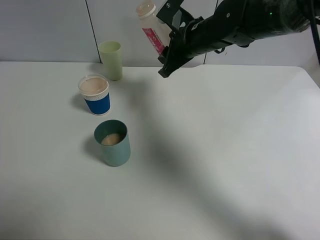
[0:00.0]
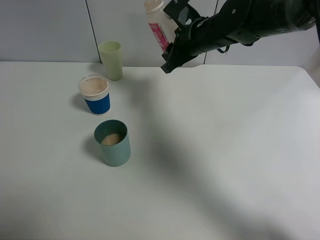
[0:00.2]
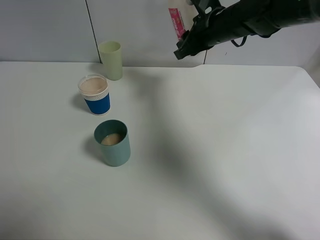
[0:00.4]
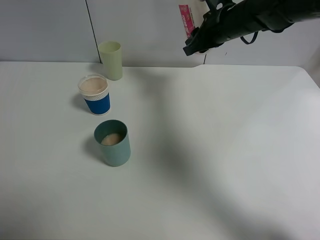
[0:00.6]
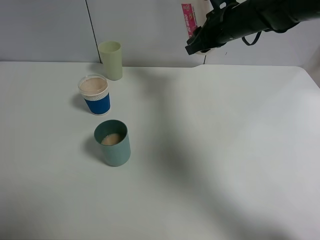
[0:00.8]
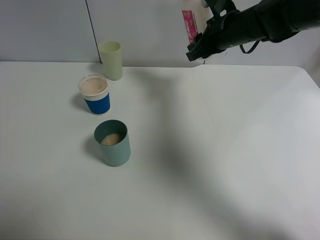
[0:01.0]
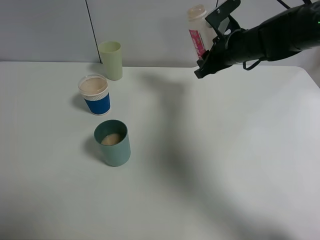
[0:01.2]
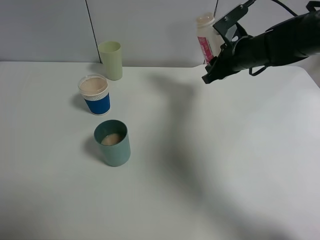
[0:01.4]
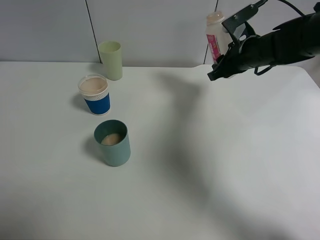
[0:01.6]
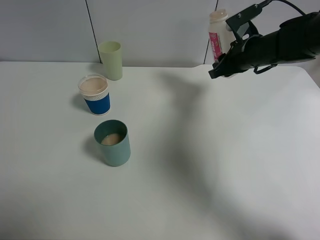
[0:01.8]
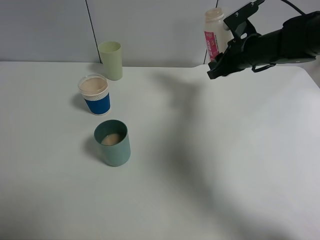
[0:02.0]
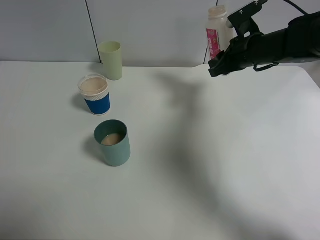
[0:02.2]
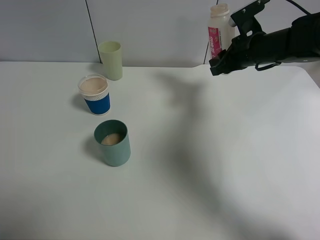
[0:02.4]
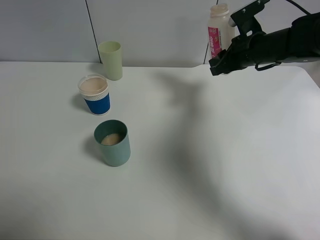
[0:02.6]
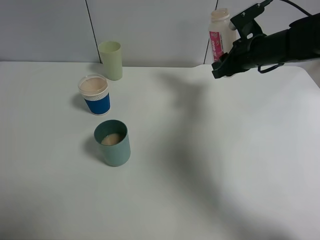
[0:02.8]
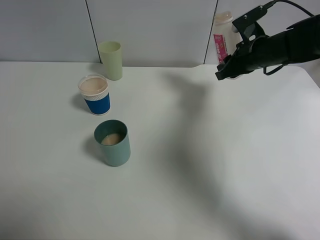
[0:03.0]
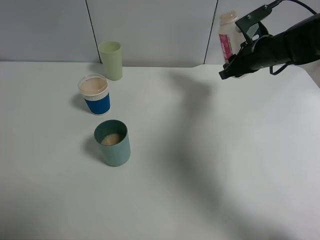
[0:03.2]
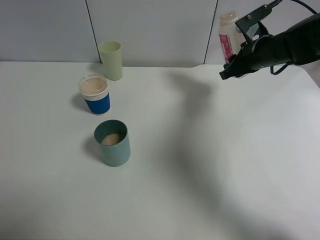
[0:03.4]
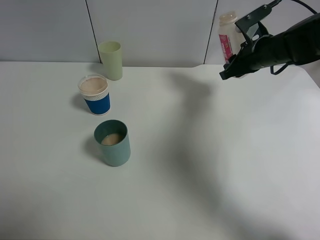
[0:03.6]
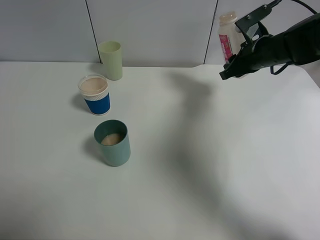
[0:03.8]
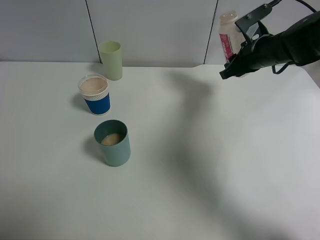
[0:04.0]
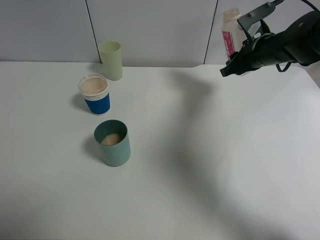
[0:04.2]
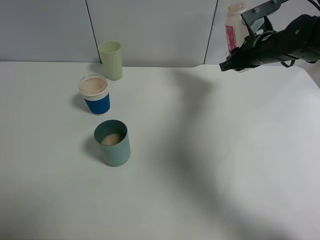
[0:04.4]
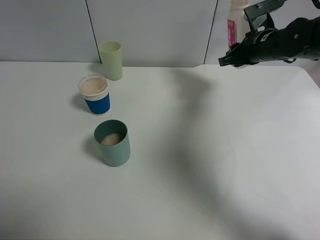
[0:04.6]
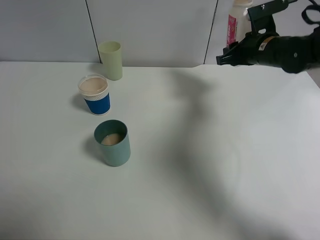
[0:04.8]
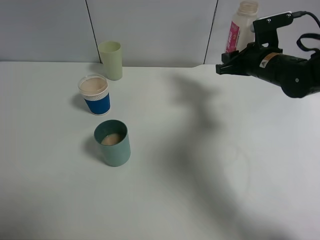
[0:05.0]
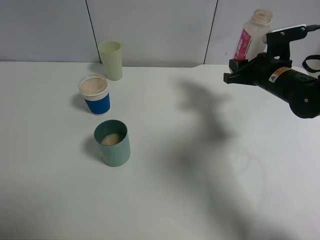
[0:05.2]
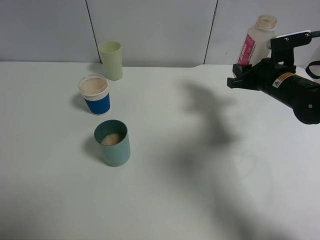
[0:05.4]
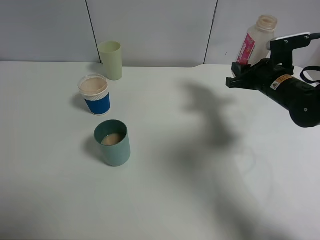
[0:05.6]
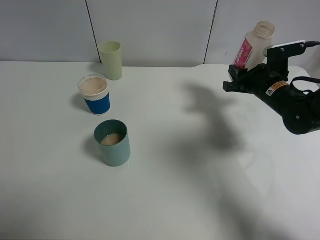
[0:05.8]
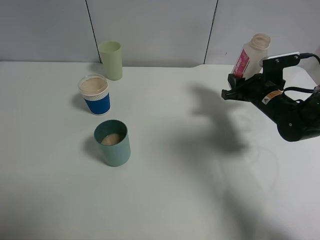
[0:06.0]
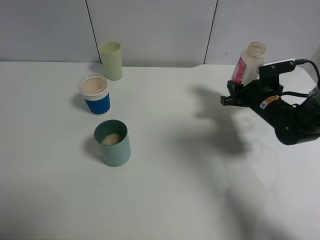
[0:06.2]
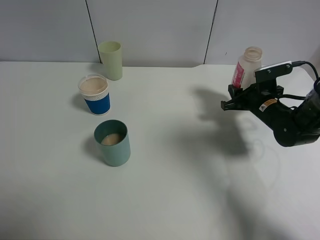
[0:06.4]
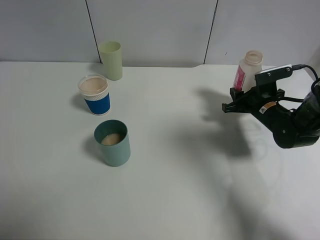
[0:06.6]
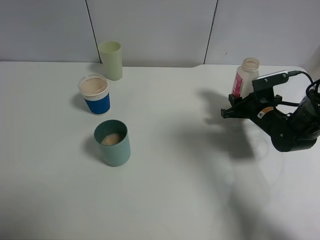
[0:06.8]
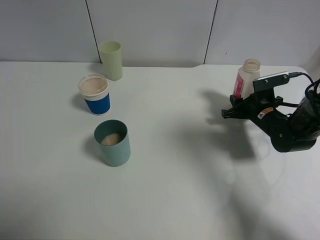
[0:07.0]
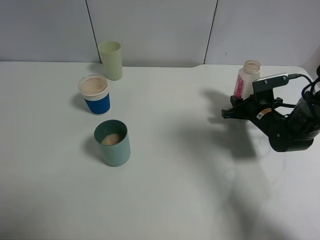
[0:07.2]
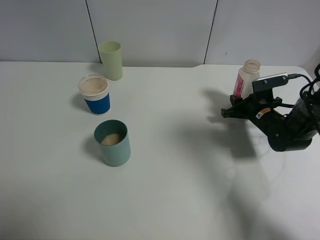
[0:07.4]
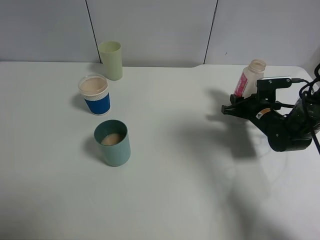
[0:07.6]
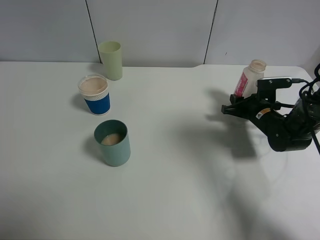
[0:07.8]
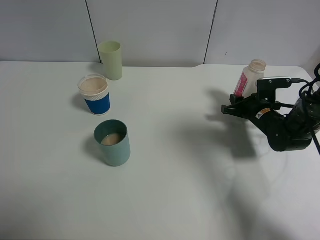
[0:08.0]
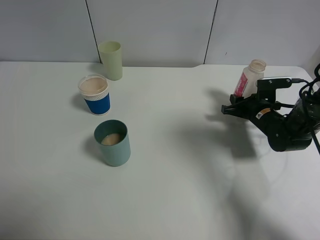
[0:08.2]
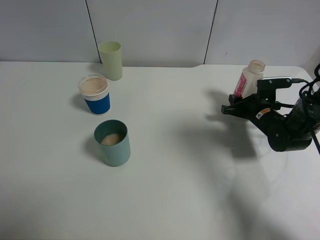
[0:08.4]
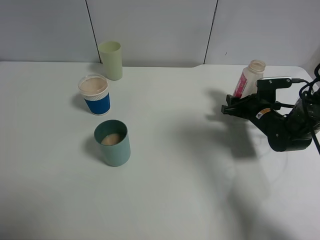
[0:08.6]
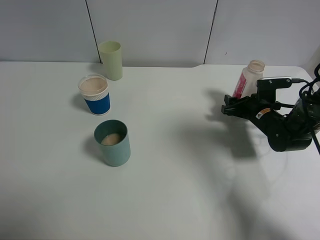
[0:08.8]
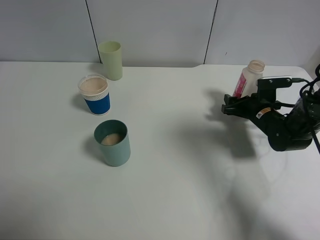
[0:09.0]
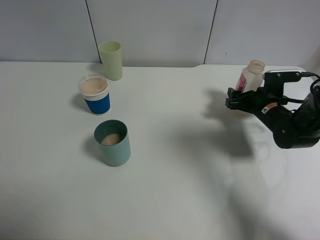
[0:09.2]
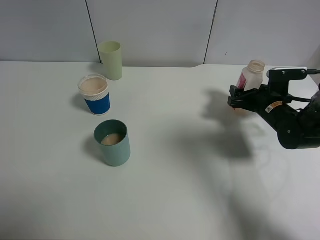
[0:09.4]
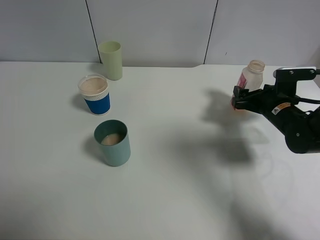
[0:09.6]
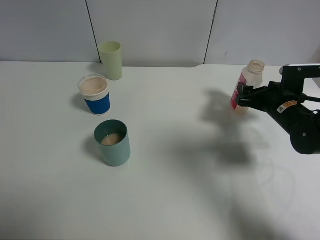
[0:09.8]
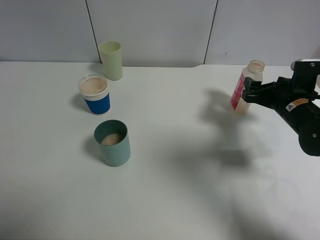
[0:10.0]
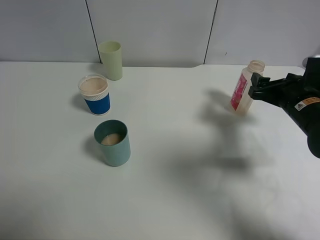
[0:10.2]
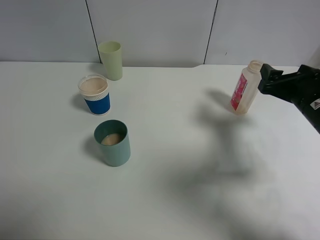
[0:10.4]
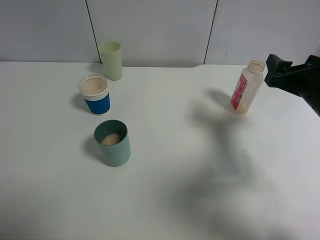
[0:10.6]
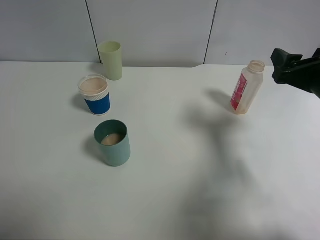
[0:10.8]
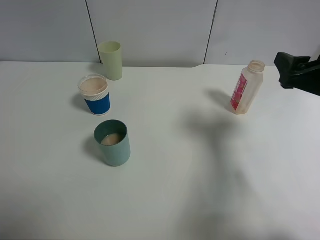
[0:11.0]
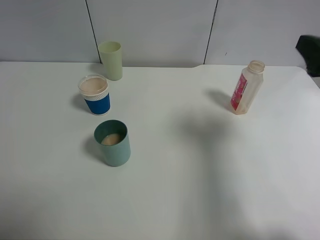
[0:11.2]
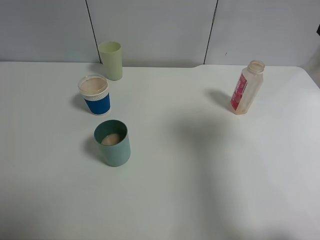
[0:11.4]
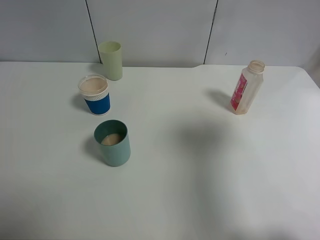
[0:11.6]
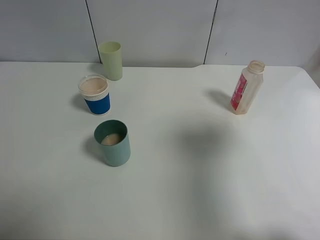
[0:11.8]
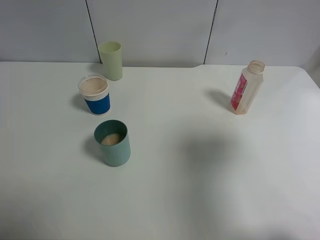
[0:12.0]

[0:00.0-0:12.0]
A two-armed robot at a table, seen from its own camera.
Task of the whole recording: use a clamp to hold the bottle of the drink, pour the beverage into a random cup, then clamp the cup containing the drink and pour the drink into another random cup.
Step, 0:00.0 to 0:10.8: Place the drink bottle on the table with right gripper.
0:00.0 to 0:01.6: The right gripper heads to the right, covering approximately 10 cm.
0:01.6 to 0:04.4: The grippers move only a little.
0:04.4 to 0:06.0: The right gripper is displaced downward and backward by some 10 cm.
0:06.0 to 0:07.6: The right gripper travels downward by about 5 cm.
0:07.6 to 0:09.0: The right gripper opens its fingers.
0:09.0 to 0:10.4: The right gripper moves upward and backward, approximately 15 cm.
0:10.4 to 0:12.0: The right gripper goes some 20 cm upward and backward.

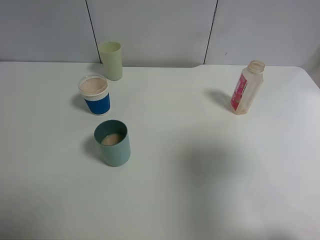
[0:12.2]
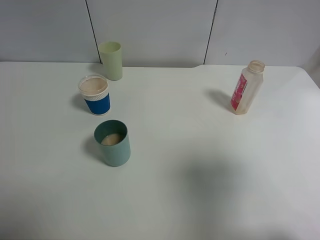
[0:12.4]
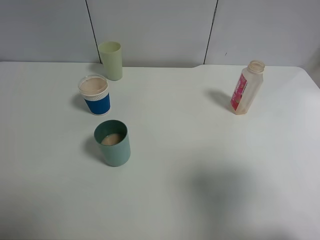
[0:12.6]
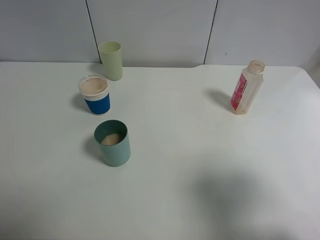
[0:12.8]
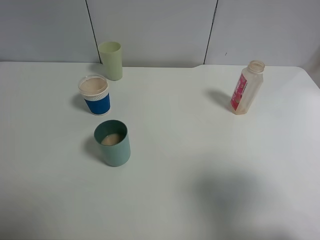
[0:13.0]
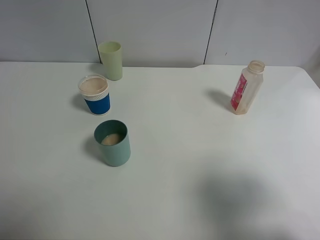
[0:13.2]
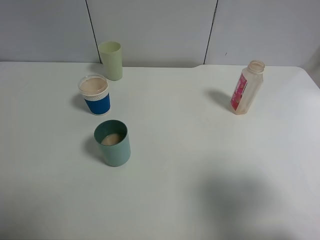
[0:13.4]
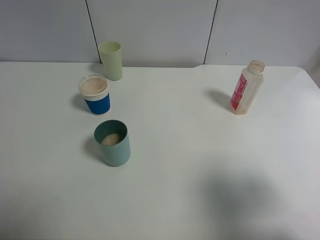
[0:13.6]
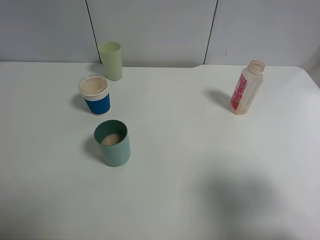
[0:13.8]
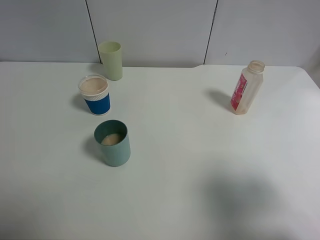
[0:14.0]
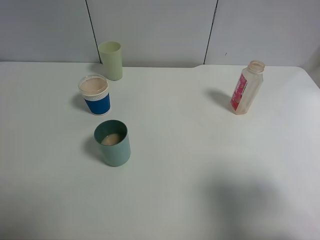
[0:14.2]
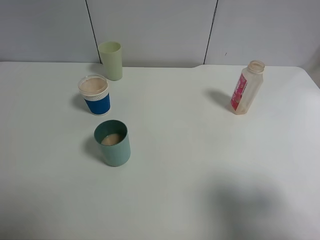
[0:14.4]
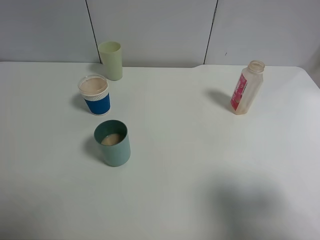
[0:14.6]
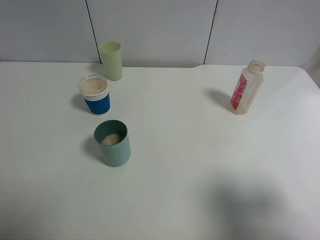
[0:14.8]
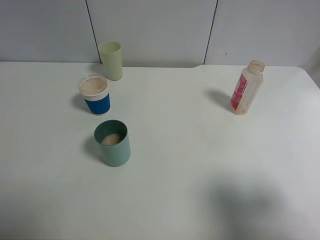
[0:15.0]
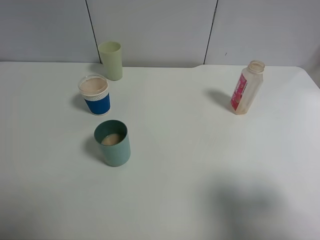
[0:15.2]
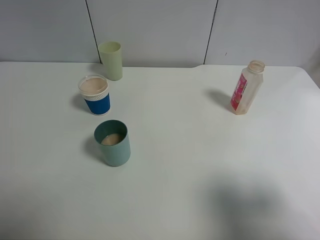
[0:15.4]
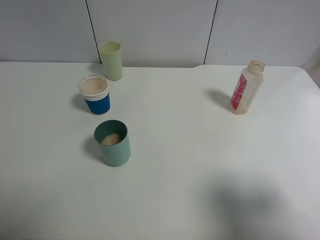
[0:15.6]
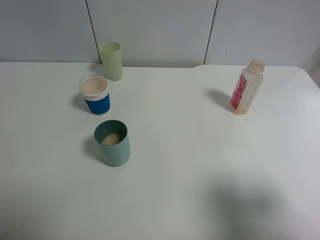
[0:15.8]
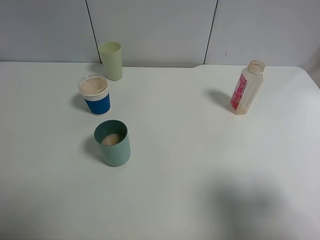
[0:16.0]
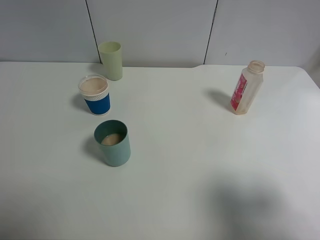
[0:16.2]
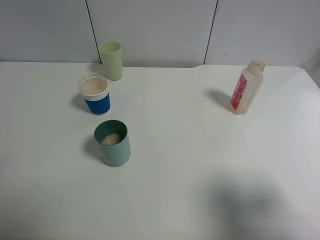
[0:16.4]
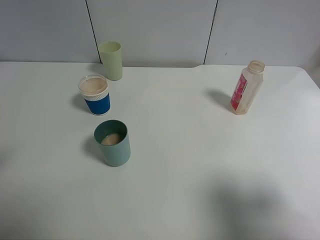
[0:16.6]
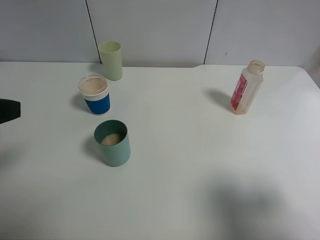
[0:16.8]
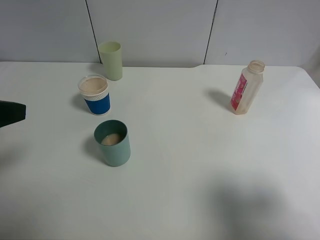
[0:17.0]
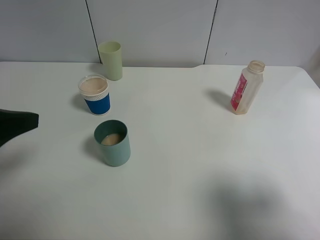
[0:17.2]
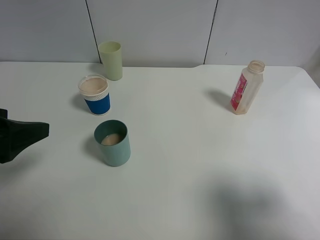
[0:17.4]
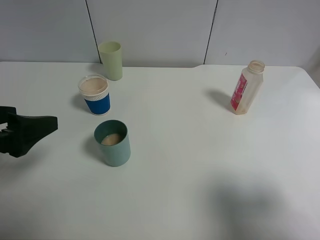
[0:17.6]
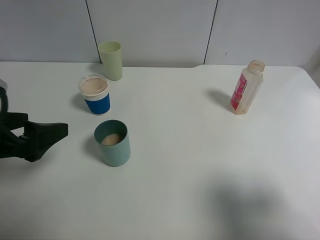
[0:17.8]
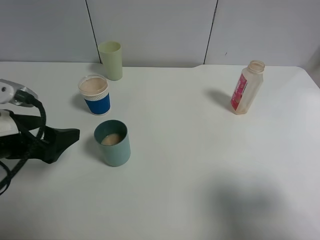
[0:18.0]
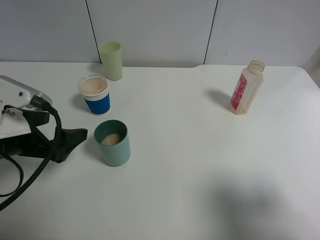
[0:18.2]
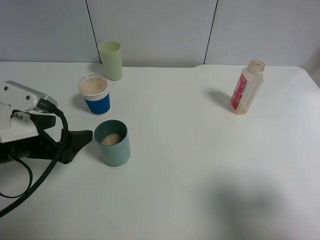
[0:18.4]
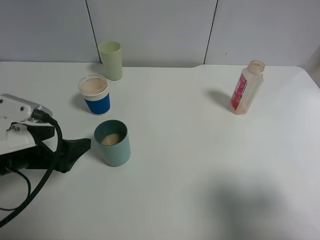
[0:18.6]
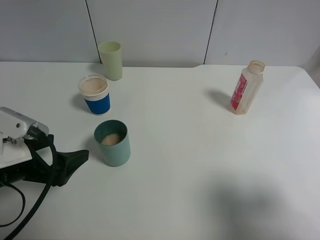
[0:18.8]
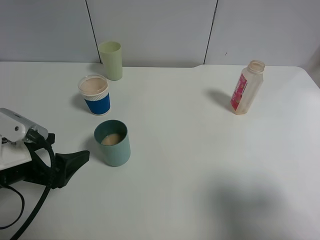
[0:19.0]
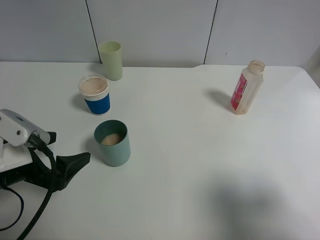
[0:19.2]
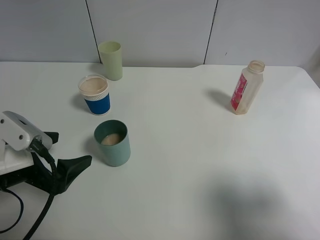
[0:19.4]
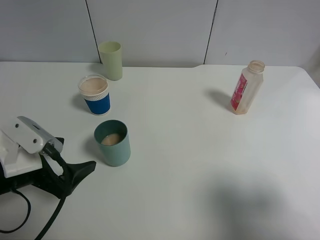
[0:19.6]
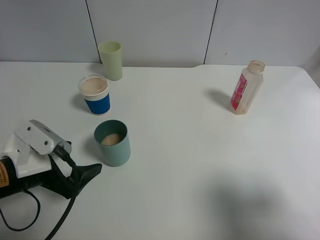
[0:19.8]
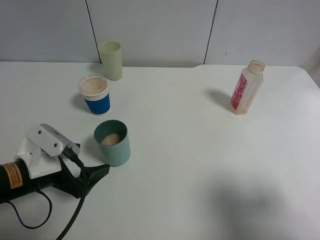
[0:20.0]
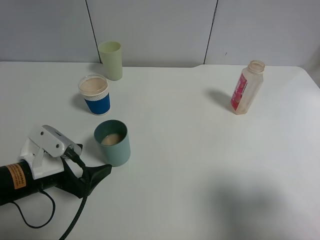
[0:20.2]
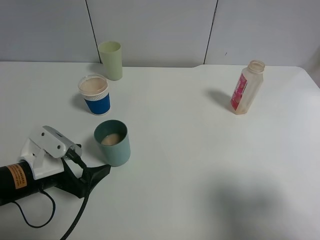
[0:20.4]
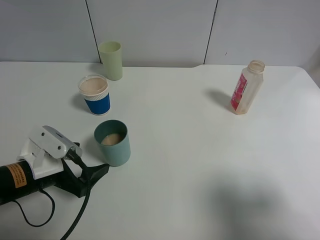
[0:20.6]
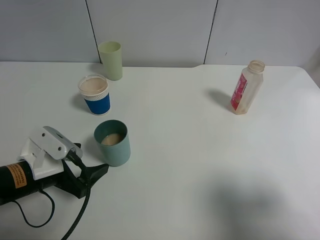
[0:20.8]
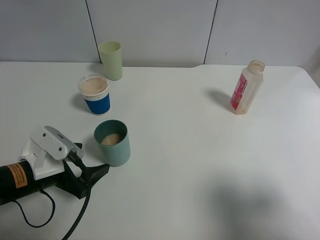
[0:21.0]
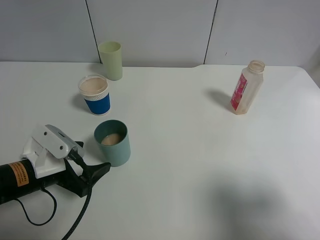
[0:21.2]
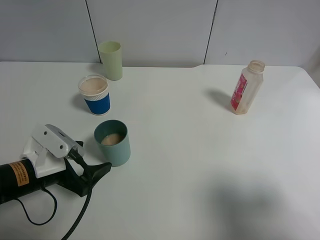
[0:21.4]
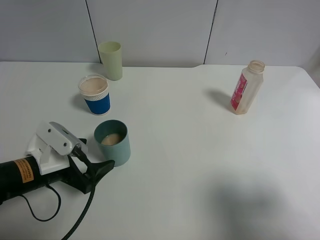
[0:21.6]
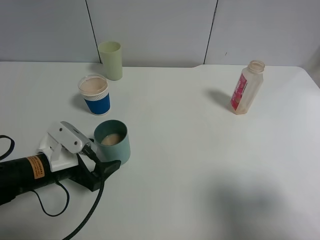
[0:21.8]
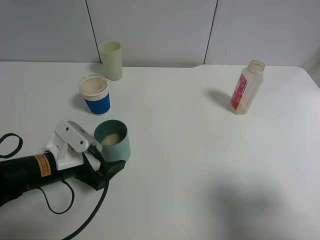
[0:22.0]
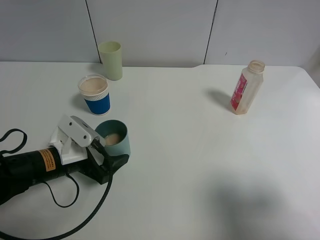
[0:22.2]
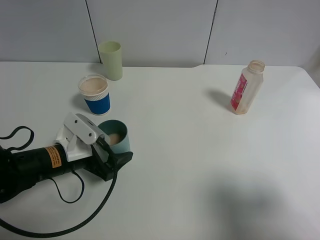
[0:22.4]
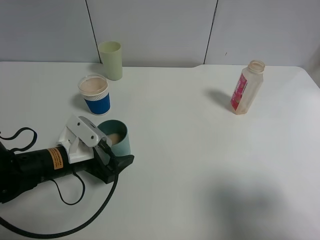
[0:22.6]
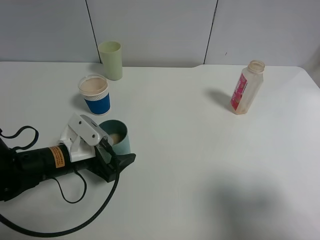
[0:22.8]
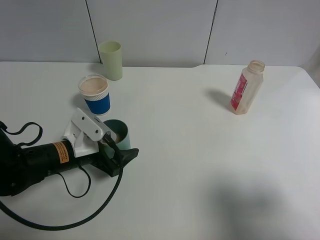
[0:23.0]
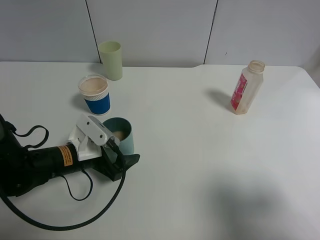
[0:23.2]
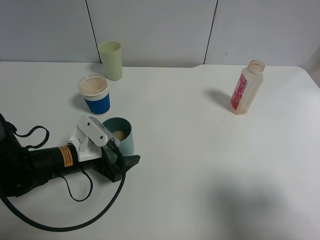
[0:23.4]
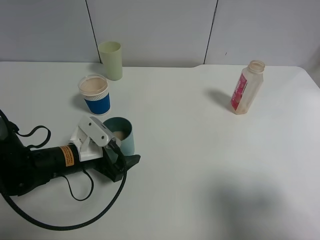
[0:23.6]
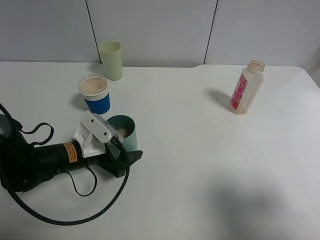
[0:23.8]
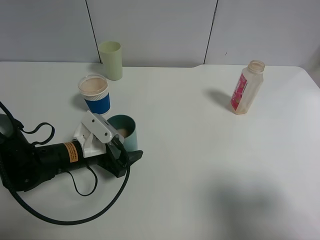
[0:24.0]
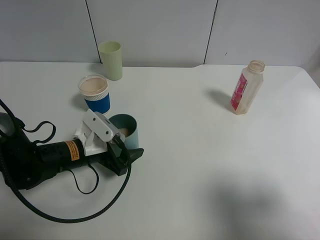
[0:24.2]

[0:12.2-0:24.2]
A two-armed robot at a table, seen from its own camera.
Task of the whole recording: use a clamp to hold the bottle of the drink, pour the beverage into a random cup, then clamp the cup containing the drink and pour the drink into another random cup.
0:12.2 to 0:13.8: The right gripper heads backward, covering about 5 cm.
0:16.6 to 0:18.2: The left gripper moves downward, forward and to the right, approximately 15 cm.
0:18.2 to 0:19.8: The left gripper goes roughly 5 cm downward.
0:19.8 to 0:21.2: The grippers stay close to where they were, moving slightly.
0:21.2 to 0:22.6: The left gripper changes place by some 5 cm.
0:22.6 to 0:24.2: The grippers stay close to where they were, moving slightly.
